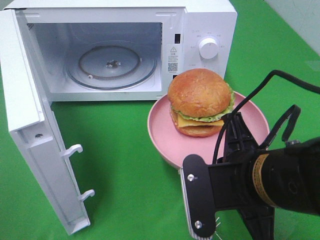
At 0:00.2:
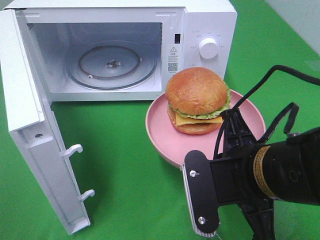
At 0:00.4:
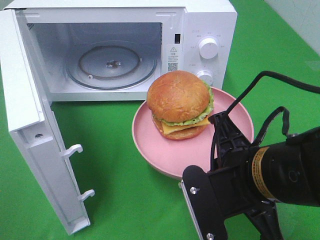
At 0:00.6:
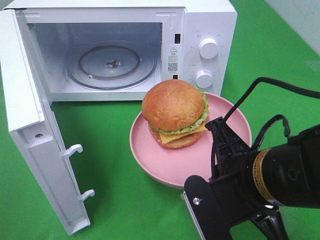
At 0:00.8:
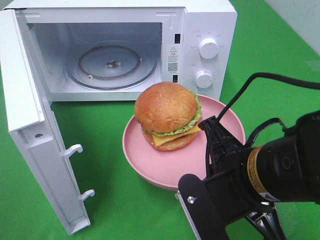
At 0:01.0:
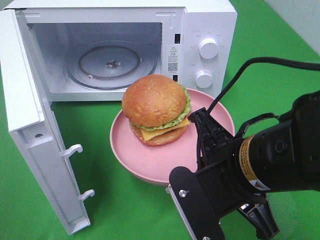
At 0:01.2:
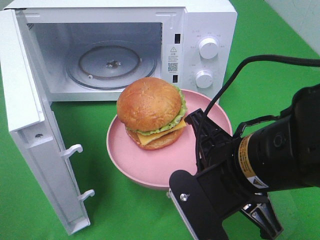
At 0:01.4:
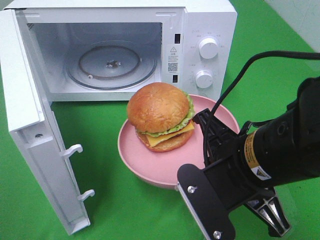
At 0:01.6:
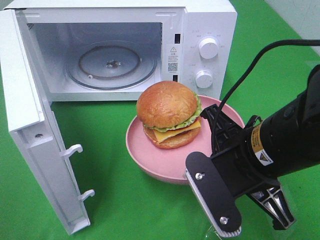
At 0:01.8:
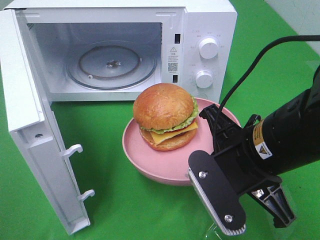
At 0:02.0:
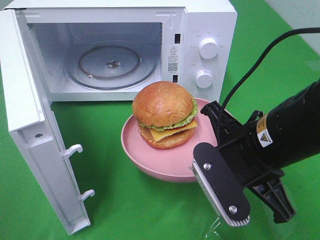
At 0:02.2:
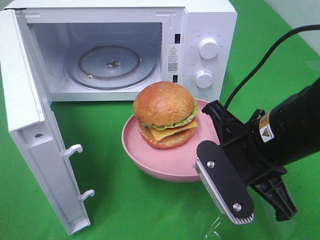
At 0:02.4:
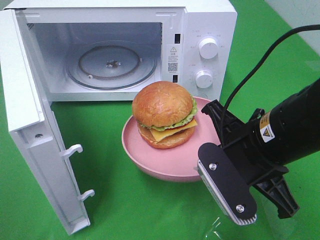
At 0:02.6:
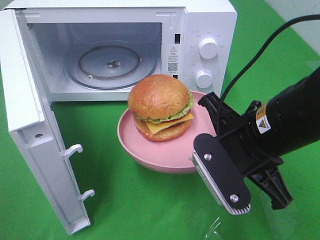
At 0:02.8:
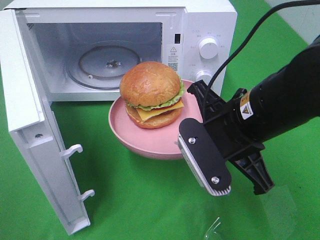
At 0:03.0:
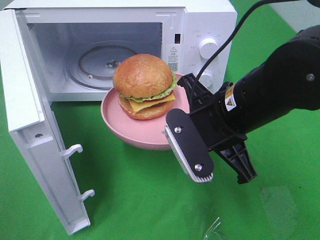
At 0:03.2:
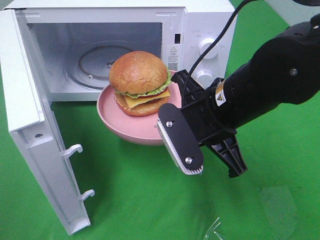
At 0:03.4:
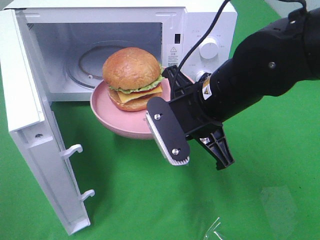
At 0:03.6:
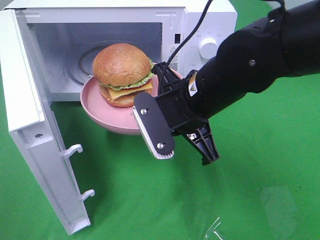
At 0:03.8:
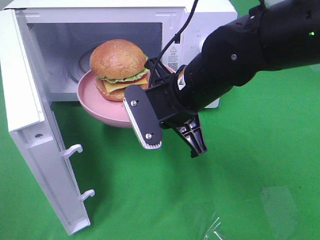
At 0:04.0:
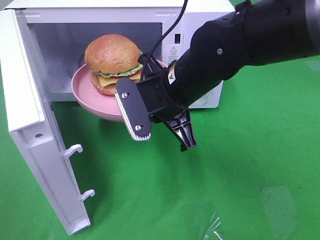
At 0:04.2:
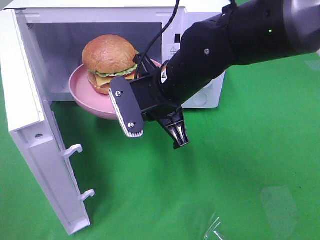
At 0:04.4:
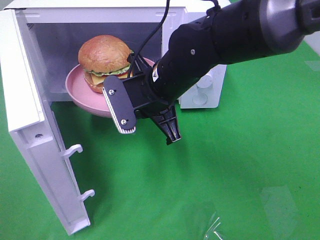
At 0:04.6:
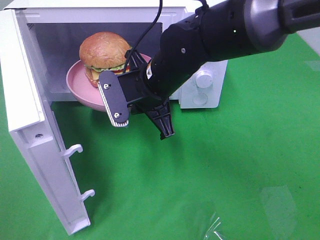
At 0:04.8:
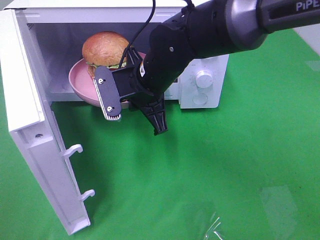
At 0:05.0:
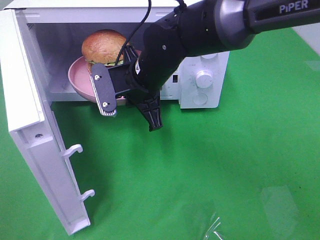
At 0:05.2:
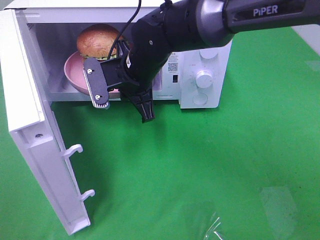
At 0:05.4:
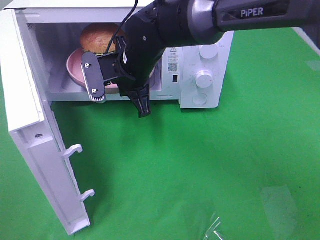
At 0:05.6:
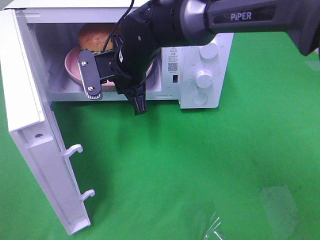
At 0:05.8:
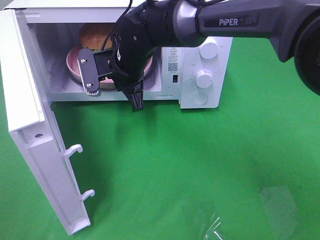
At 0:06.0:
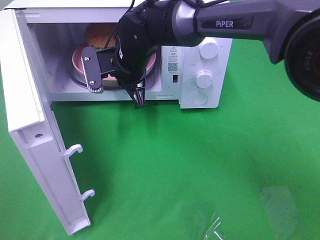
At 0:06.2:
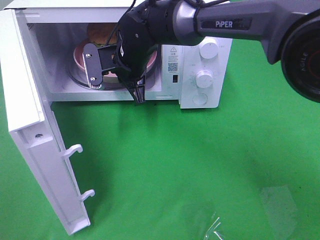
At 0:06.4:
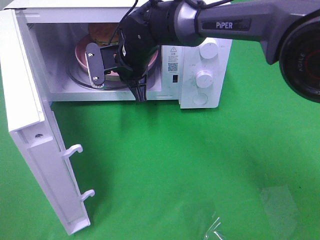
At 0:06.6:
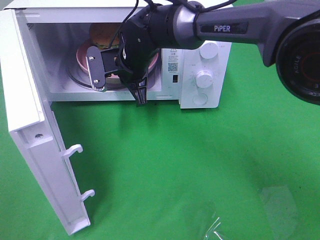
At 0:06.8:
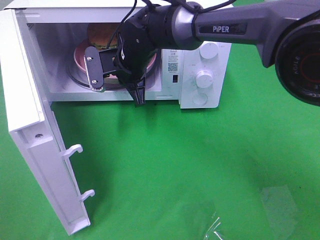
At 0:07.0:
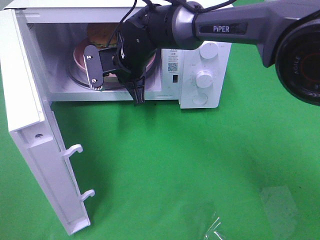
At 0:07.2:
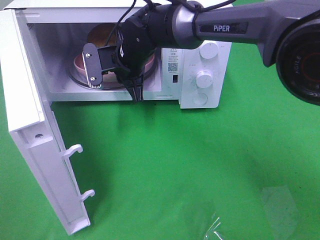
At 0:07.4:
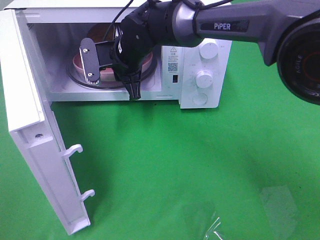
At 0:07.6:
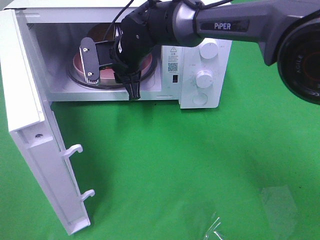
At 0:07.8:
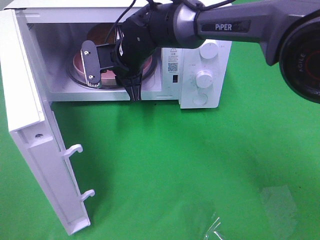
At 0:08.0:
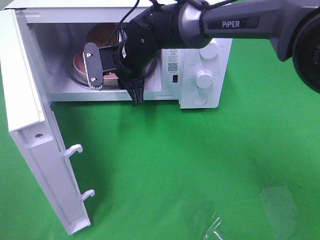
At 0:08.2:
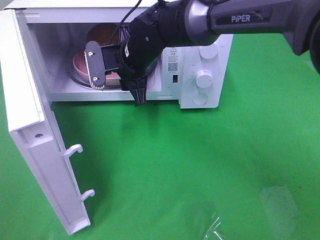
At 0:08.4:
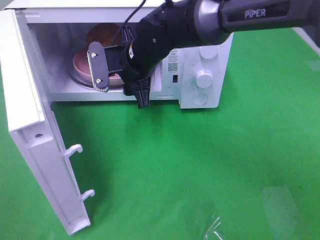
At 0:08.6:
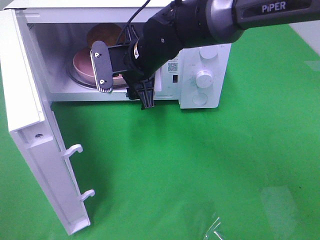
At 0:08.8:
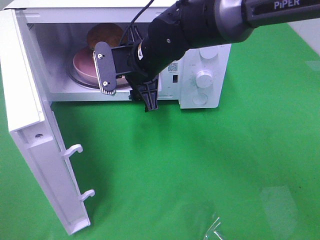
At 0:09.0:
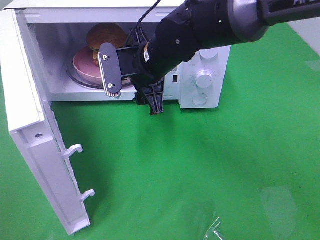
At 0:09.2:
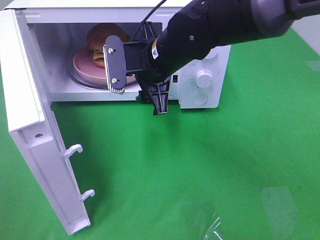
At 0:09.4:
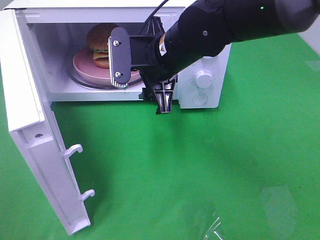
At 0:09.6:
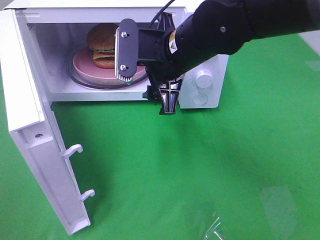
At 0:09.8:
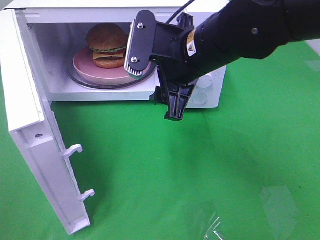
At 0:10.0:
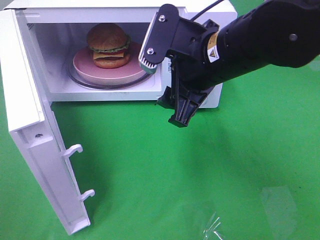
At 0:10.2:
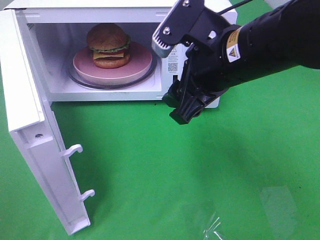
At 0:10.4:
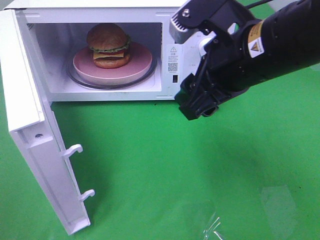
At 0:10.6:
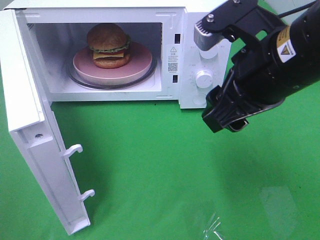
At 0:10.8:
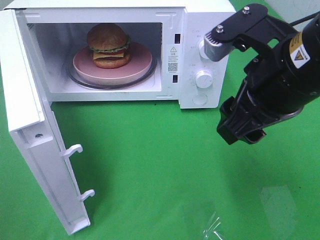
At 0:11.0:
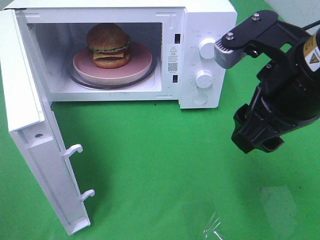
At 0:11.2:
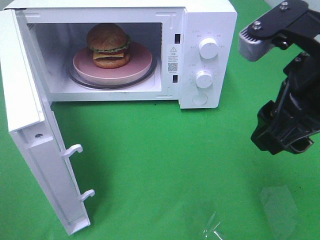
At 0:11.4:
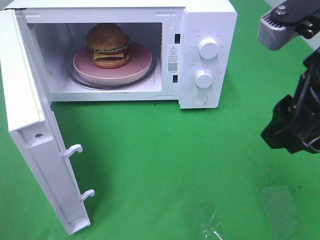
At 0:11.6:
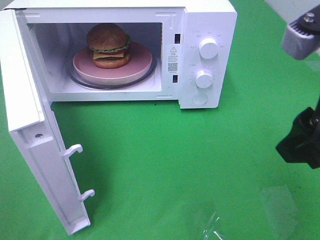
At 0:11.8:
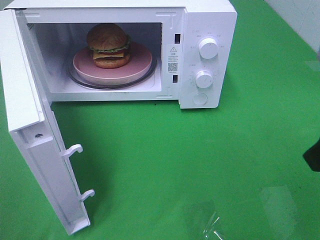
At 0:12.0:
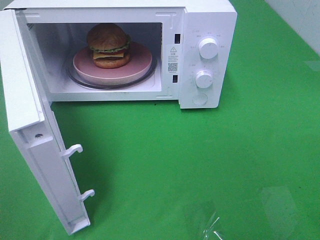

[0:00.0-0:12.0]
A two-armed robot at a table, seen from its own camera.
Task of the whole recording: Heat the burger.
Step, 0:00.0 to 0:08.2: Right hand: place the plate in the microwave.
0:01.6 to 0:03.0: The right gripper is displaced forward by some 5 cm.
0:03.0 to 0:04.4: The right gripper moves to the left and forward, some 10 cm.
0:04.4 to 0:06.0: The right gripper goes roughly 10 cm forward and to the left.
0:06.0 to 0:07.6: The right gripper opens up.
0:07.6 to 0:09.0: The right gripper heads backward, covering some 5 cm, and opens up.
0:09.0 to 0:10.4: The right gripper travels backward, to the right and upward by roughly 20 cm.
0:10.4 to 0:12.0: The right gripper shifts about 20 cm to the right and backward.

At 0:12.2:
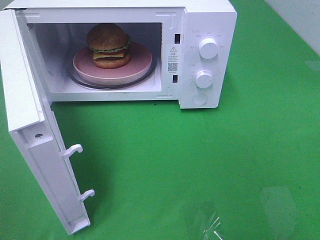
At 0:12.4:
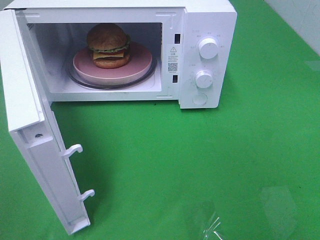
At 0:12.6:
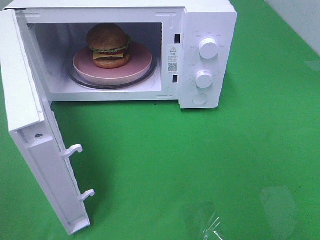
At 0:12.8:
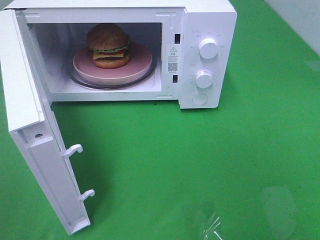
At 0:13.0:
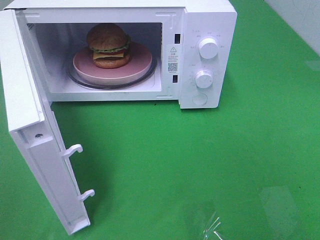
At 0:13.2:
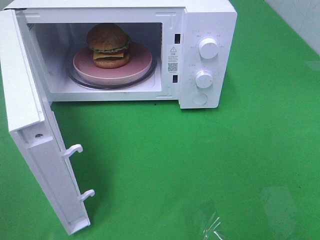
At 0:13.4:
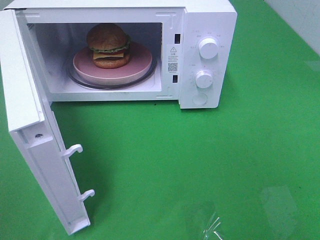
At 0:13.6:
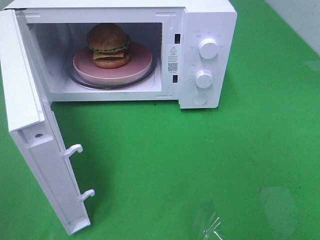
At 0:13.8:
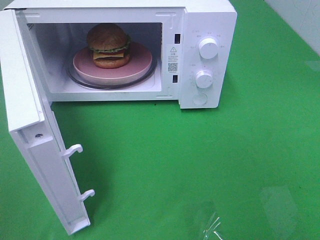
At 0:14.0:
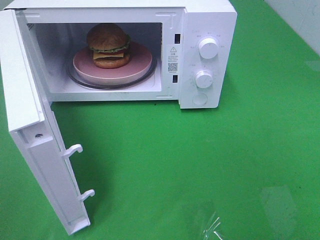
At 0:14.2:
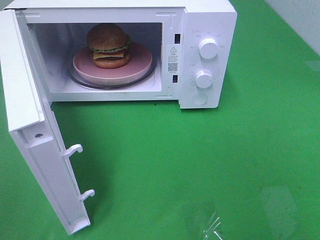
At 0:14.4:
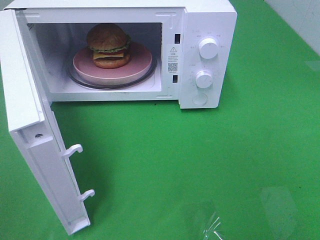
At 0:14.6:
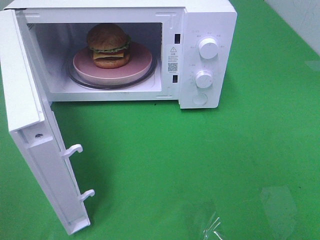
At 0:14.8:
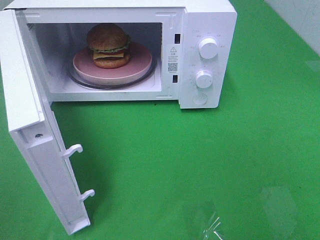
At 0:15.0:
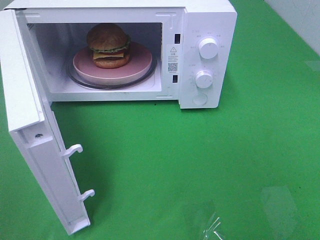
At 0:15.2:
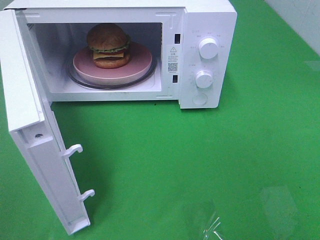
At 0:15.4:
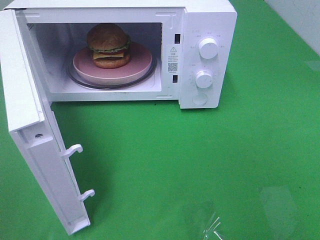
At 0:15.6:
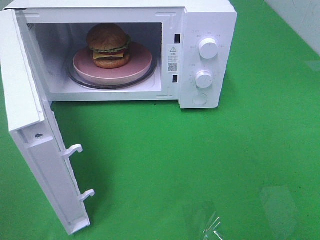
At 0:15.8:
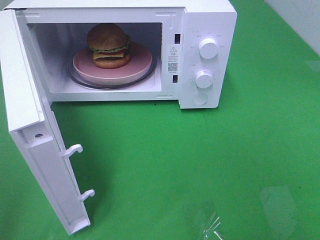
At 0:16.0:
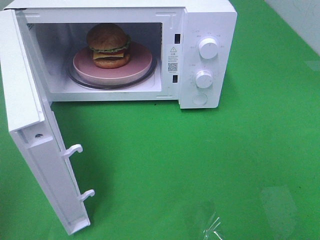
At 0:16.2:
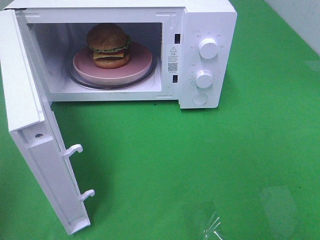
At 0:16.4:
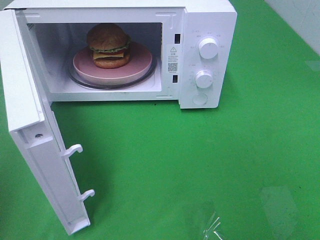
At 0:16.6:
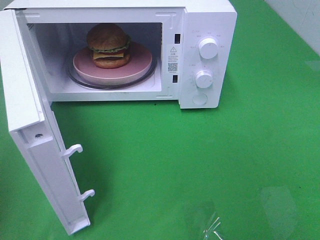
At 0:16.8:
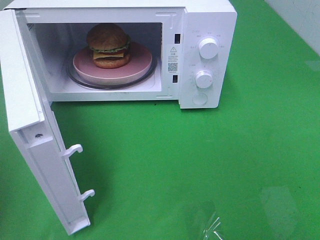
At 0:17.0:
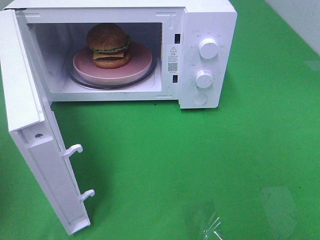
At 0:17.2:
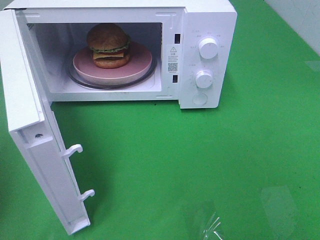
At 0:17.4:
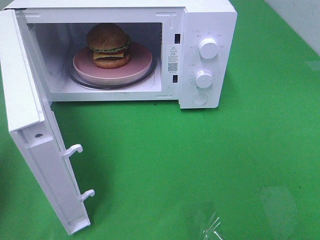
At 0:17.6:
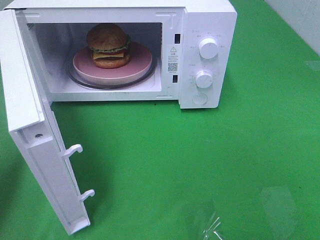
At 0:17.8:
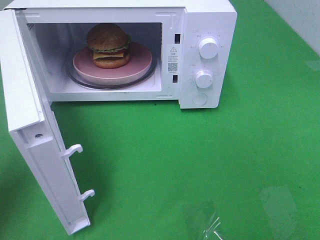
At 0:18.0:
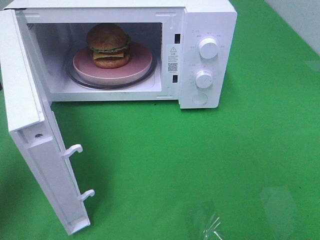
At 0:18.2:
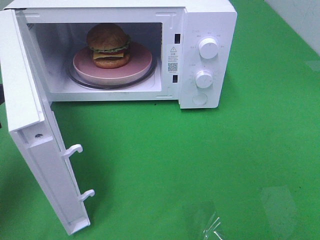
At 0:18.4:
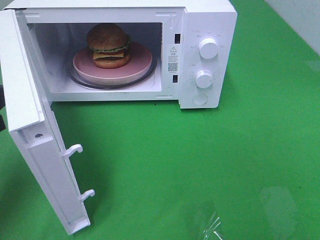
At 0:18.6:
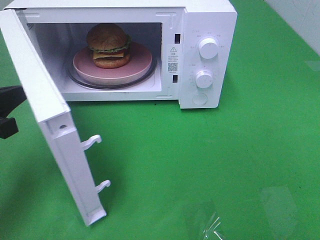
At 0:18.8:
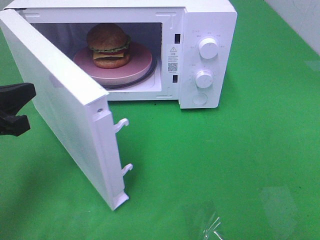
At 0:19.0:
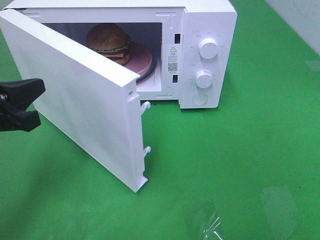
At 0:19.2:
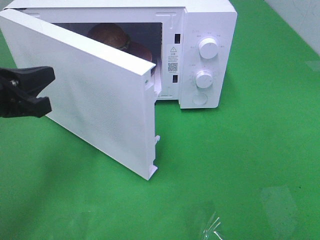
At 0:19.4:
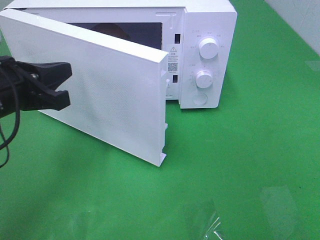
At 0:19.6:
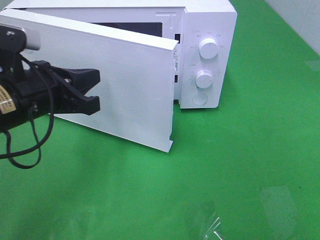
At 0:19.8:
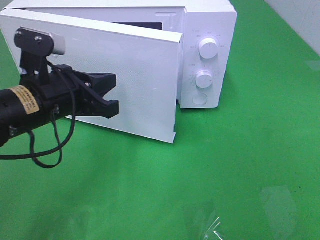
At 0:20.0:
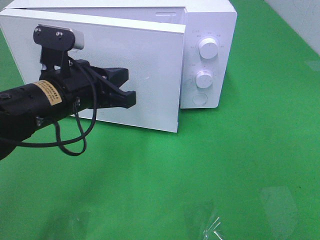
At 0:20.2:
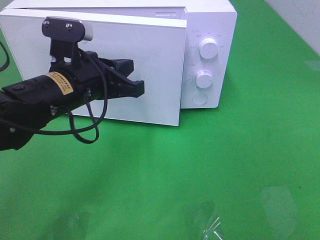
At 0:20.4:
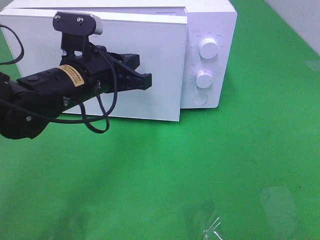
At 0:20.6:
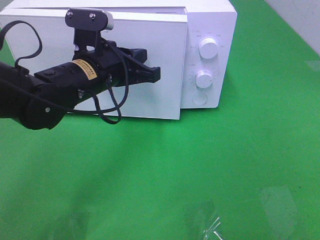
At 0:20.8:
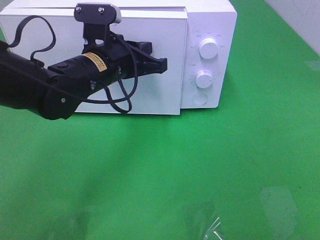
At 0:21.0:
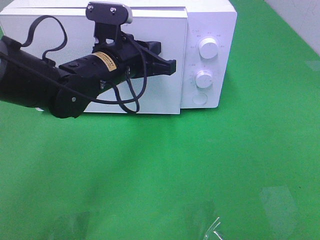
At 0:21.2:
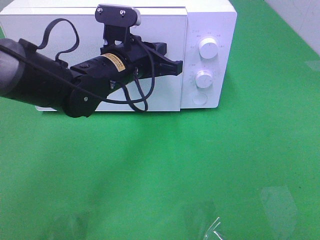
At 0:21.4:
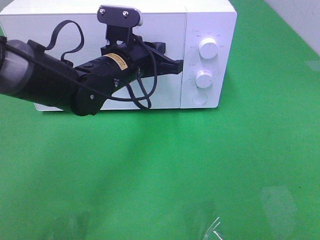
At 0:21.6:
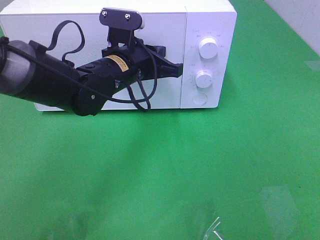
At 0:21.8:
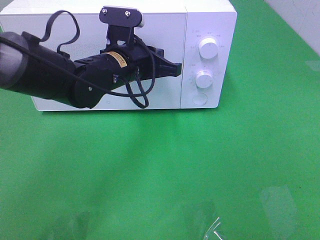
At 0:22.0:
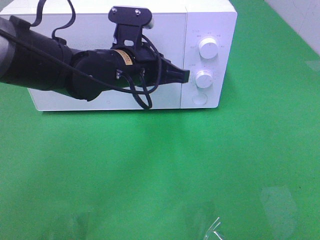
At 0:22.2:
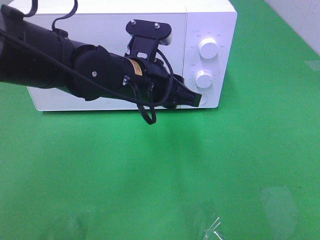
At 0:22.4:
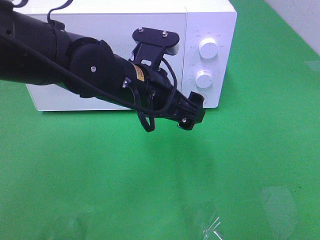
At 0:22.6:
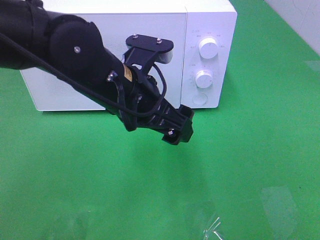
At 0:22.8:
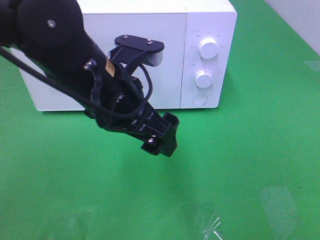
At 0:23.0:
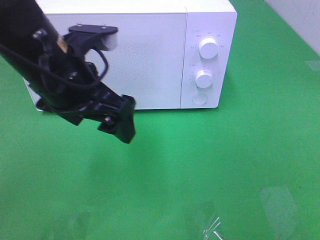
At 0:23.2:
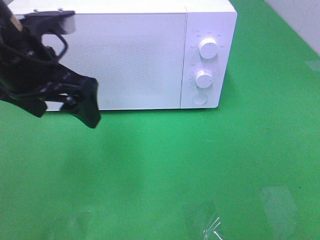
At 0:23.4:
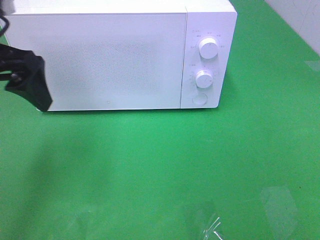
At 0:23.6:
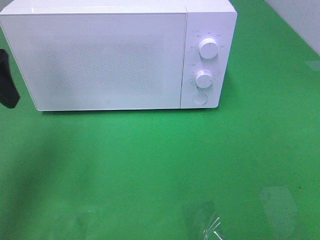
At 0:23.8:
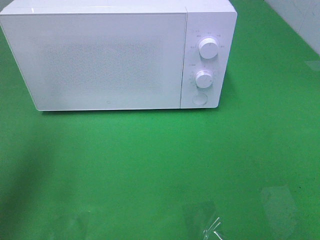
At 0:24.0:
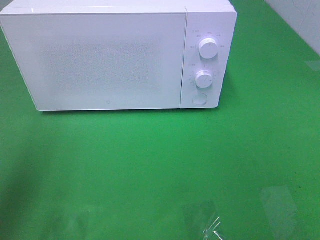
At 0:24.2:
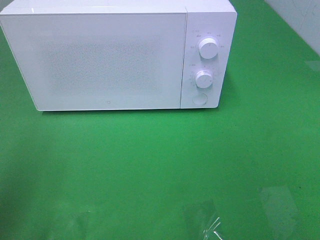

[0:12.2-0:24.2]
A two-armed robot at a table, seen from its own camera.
Task of the whole recording: Heat the burger.
Step, 0:12.2 to 0:22.0: Left hand: close the microwave door.
0:13.8 to 0:15.2: Both grippers stay put.
0:16.6 to 0:18.2: The left gripper is displaced forward and downward by about 15 cm.
0:18.2 to 0:19.8: The left gripper travels to the right by roughly 15 cm.
0:19.8 to 0:21.2: The left gripper moves forward and to the right, some 15 cm.
0:21.2 to 0:22.6: The left gripper goes approximately 10 cm backward, and opens.
0:22.6 to 0:24.2: The left gripper shifts roughly 30 cm to the left and backward.
